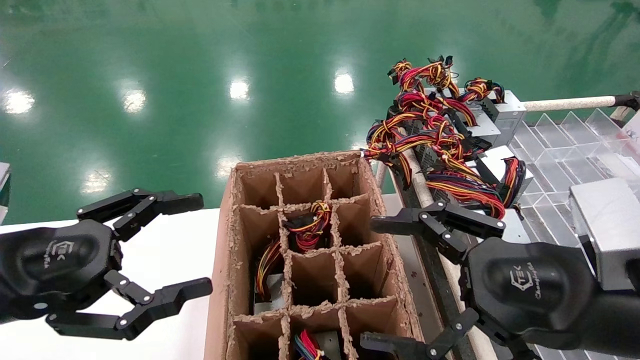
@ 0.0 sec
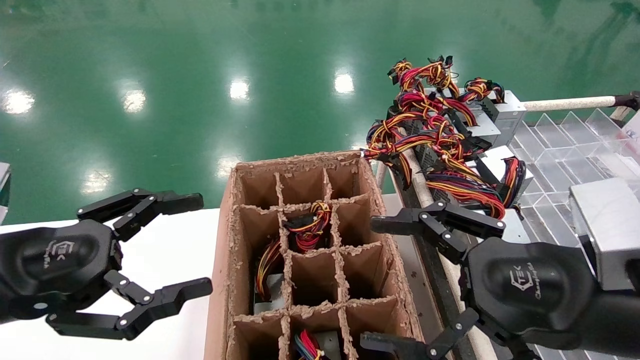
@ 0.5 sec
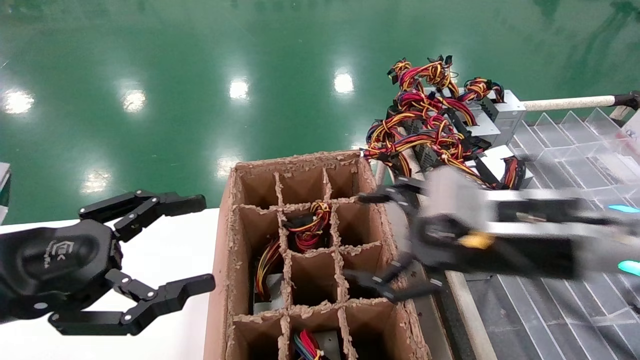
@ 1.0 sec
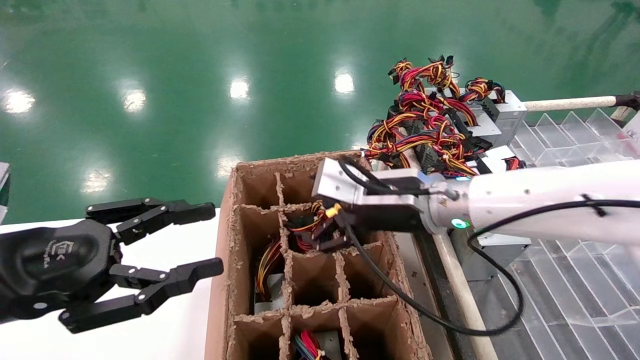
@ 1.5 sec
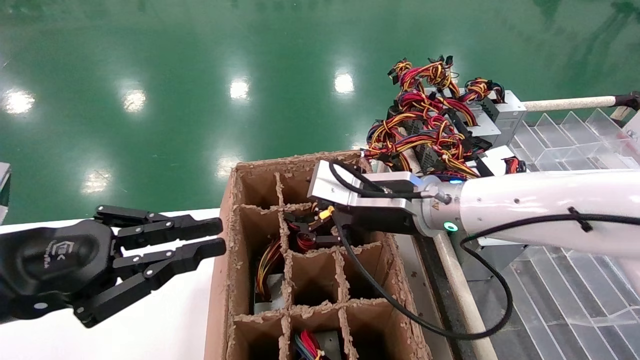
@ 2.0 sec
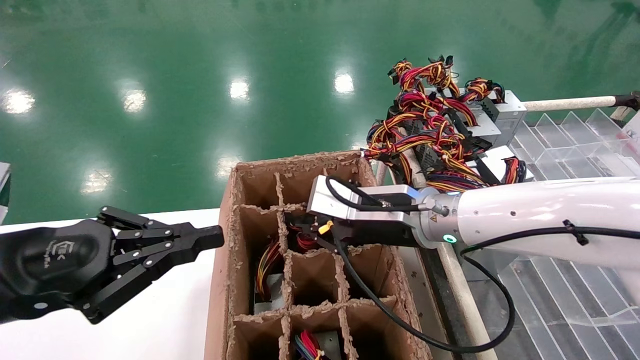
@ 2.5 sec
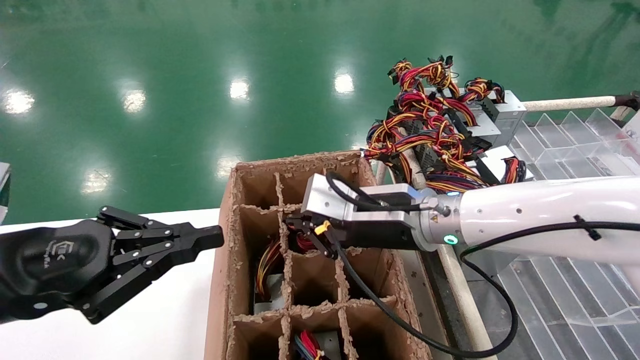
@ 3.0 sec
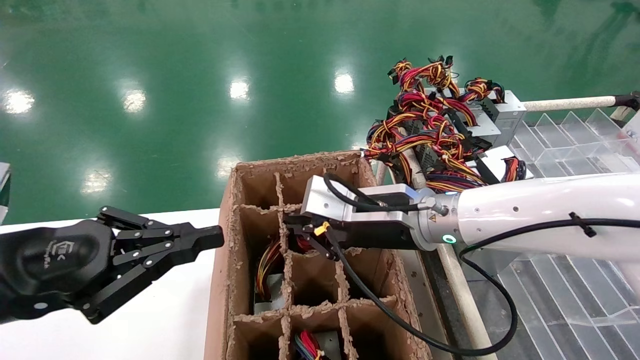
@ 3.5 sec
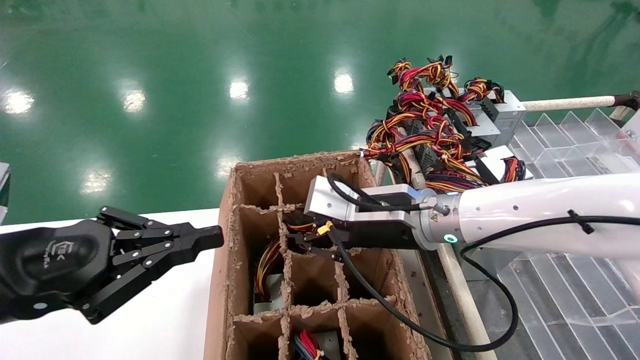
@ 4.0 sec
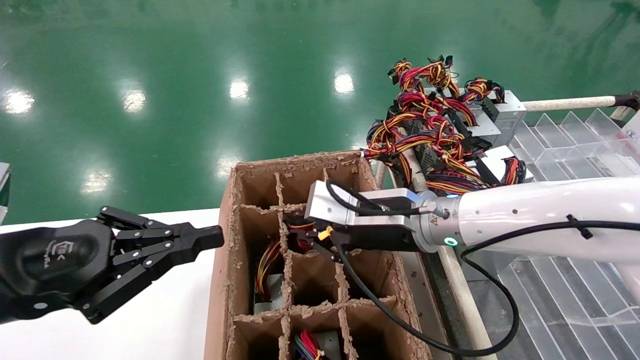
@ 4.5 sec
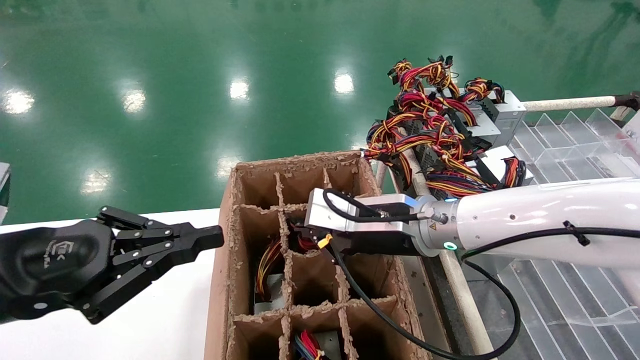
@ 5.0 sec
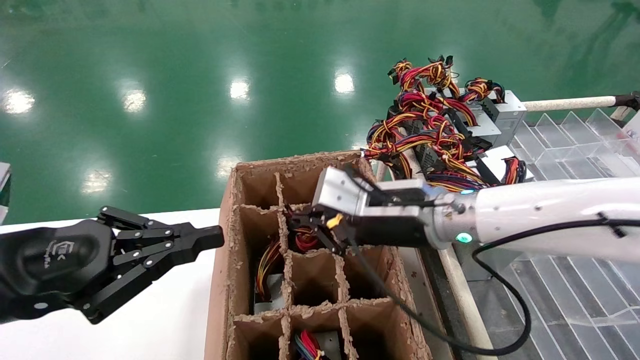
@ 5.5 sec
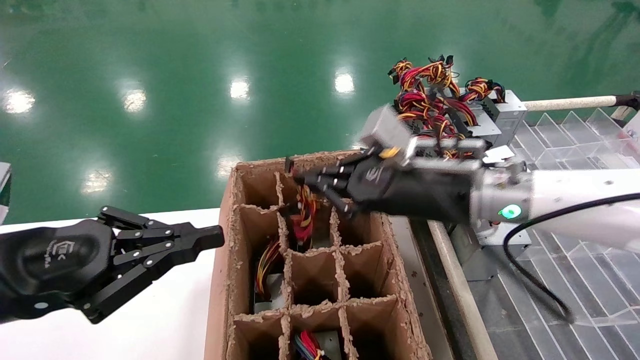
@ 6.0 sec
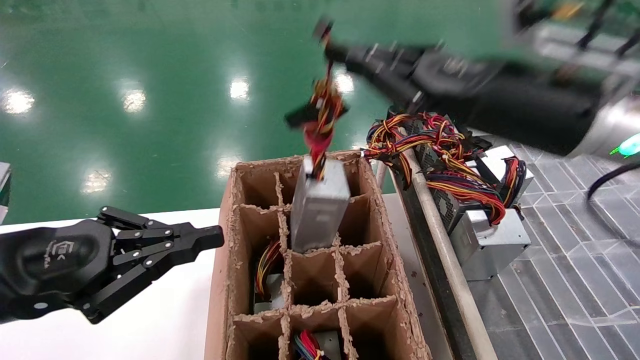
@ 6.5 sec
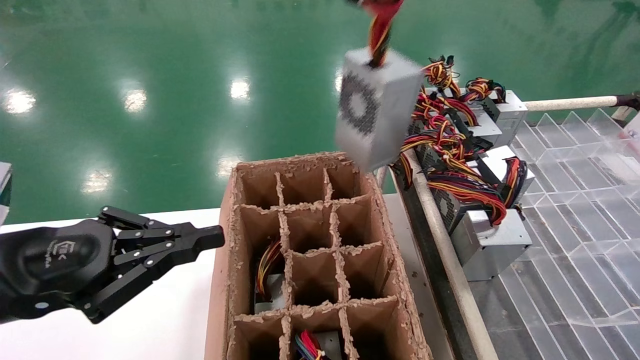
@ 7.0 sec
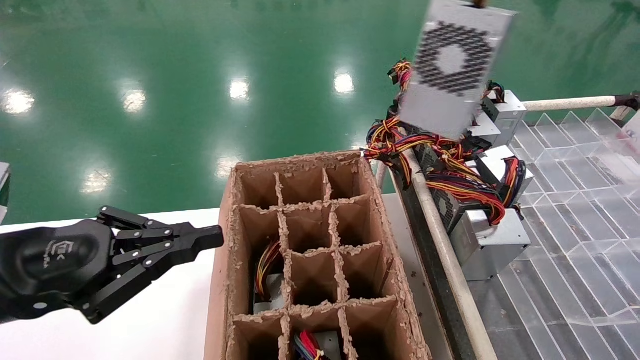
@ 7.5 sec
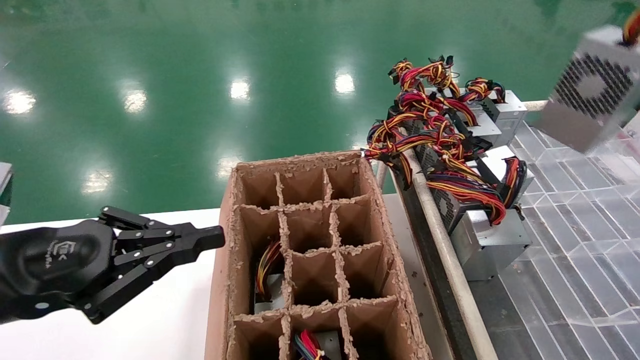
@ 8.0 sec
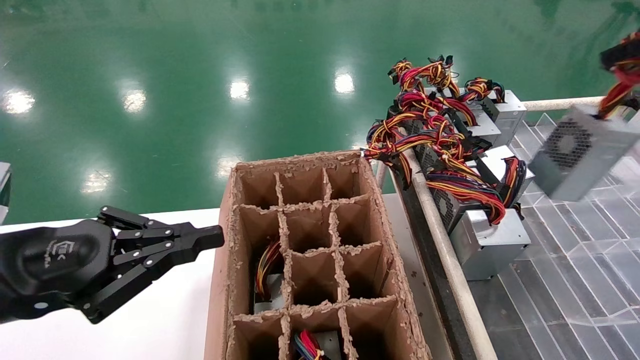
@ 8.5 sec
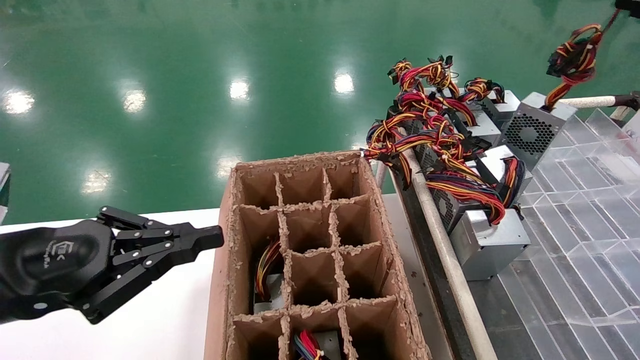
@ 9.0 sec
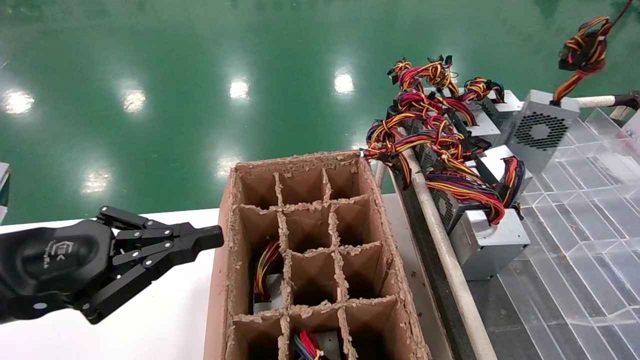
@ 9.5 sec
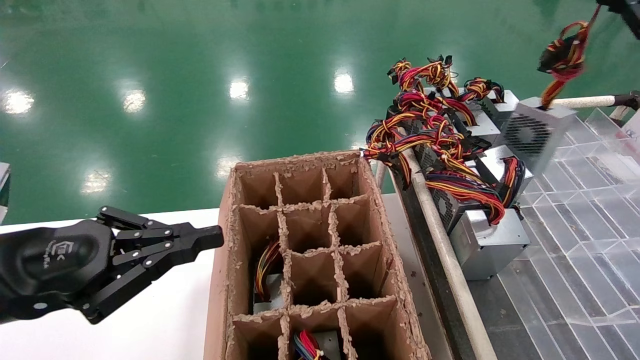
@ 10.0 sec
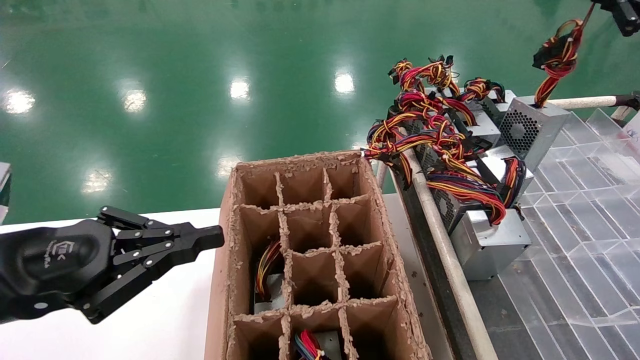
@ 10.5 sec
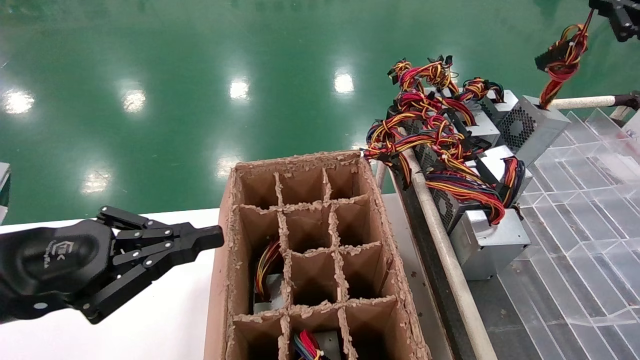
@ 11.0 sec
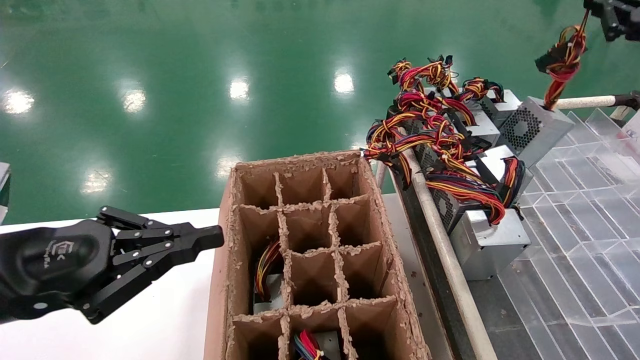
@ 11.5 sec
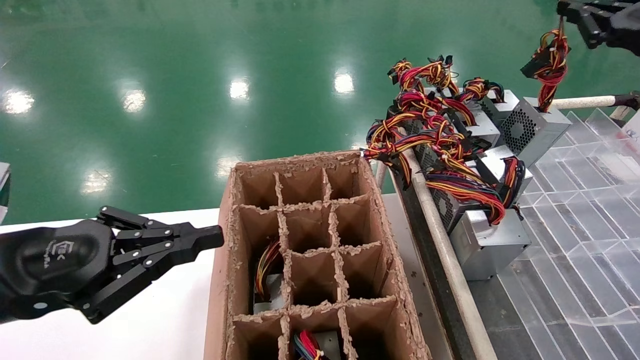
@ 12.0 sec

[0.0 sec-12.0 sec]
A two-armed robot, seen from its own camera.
Step, 1.0 sec to 5.0 sec: Grab the main unit power supply from the containment box.
0.0 sec to 2.0 sec: The right gripper travels forward and to the left by roughly 20 cm. The left gripper closes.
2.0 sec to 4.0 sec: The right gripper closes its fingers.
4.0 sec to 6.0 sec: The right gripper travels to the right by roughly 5 cm.
6.0 sec to 8.0 sec: The right gripper is displaced to the right, upward and backward by some 40 cm.
8.0 sec to 10.0 sec: The right gripper moves forward and downward, approximately 20 cm.
10.0 sec to 12.0 sec: The grippers stay close to where they were, moving slightly.

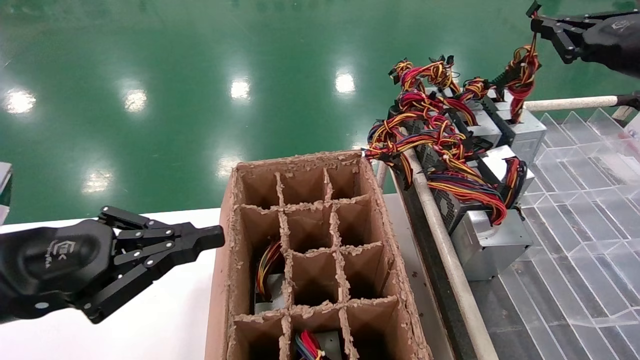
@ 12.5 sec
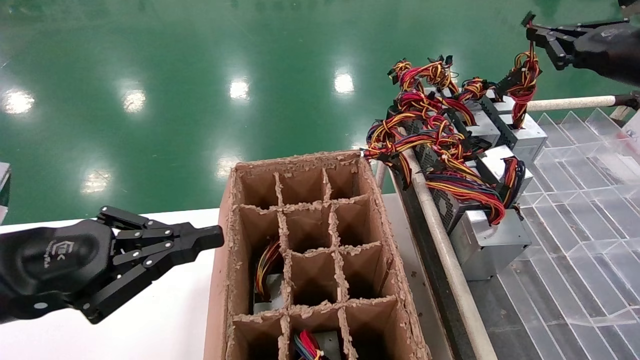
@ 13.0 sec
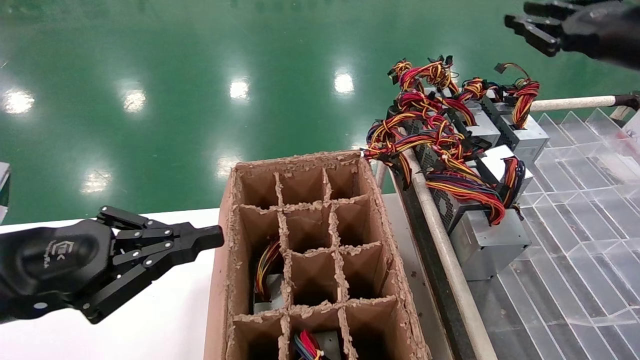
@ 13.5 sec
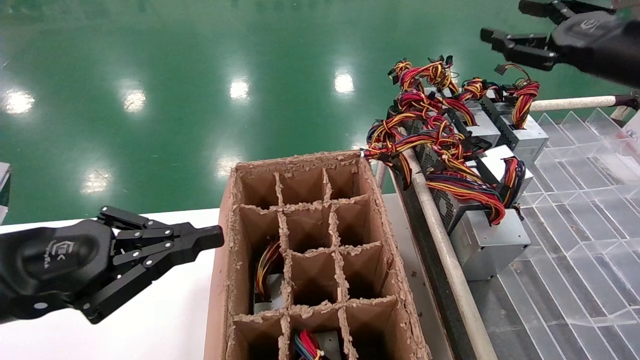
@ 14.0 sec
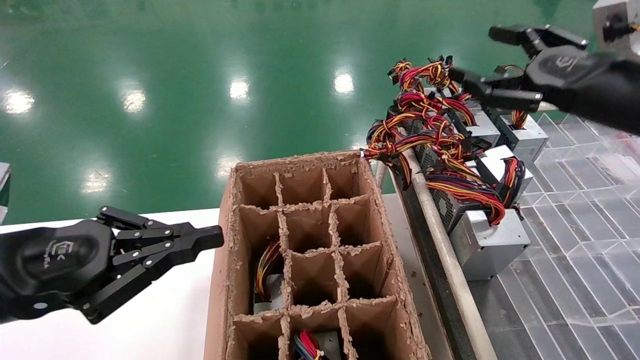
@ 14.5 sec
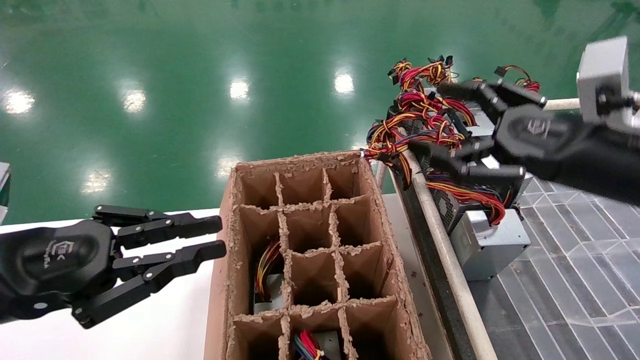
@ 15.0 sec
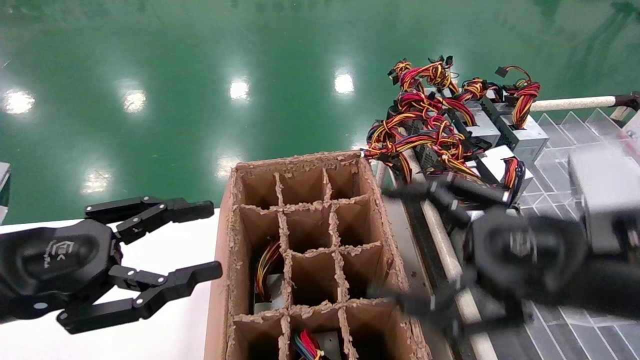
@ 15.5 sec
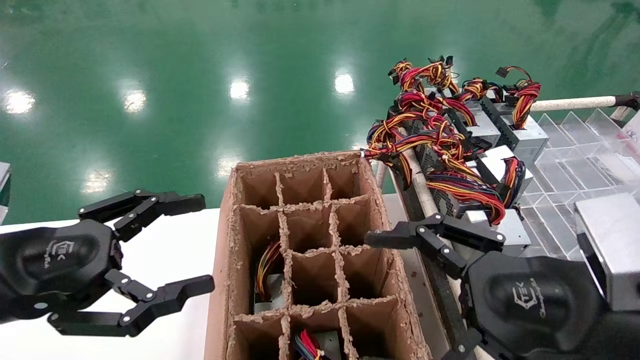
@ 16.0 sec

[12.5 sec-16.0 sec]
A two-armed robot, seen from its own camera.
12.5 sec to 14.5 sec: The right gripper heads to the left, covering approximately 10 cm, and opens its fingers.
14.5 sec to 16.0 sec: The left gripper opens. The right gripper is displaced backward, downward and to the left by some 20 cm.
